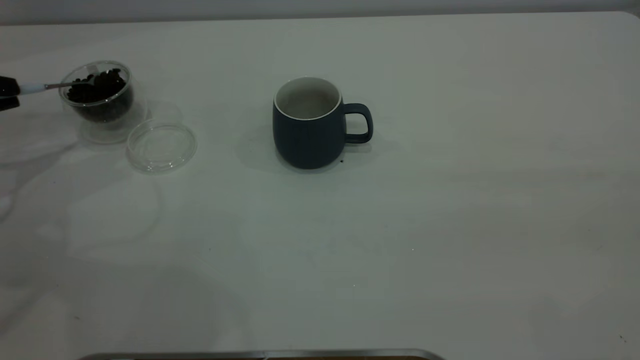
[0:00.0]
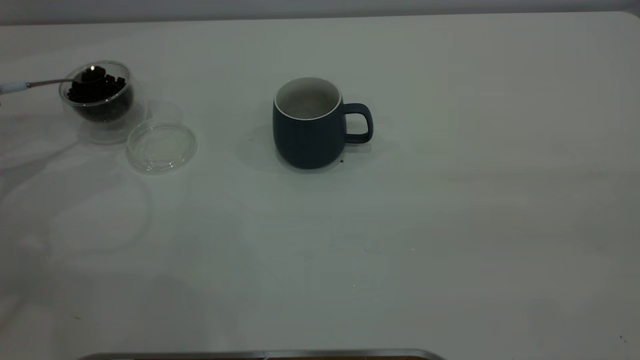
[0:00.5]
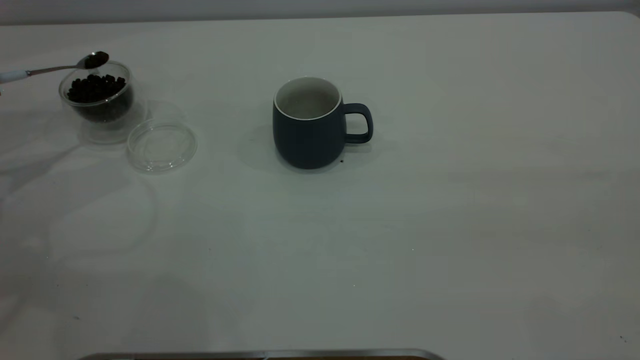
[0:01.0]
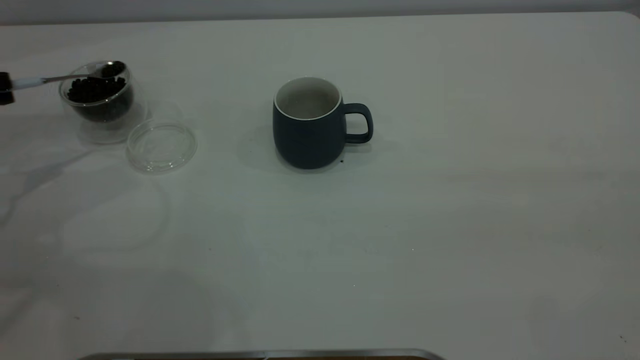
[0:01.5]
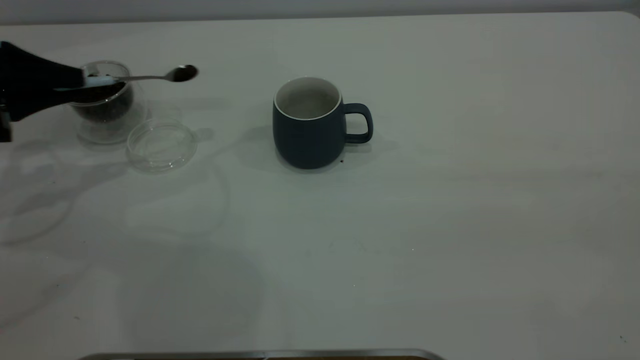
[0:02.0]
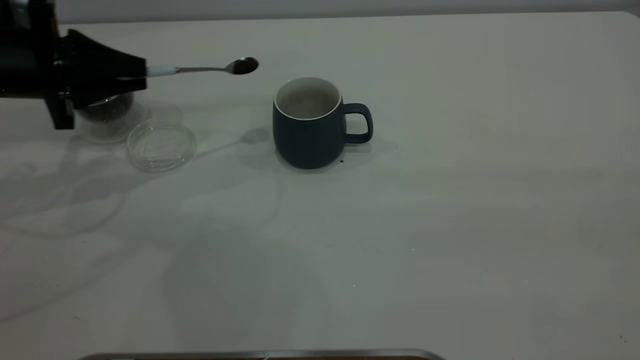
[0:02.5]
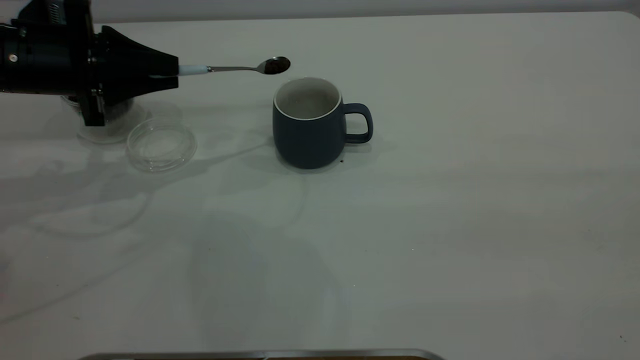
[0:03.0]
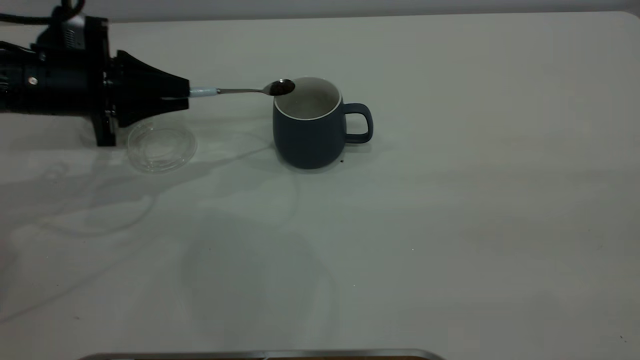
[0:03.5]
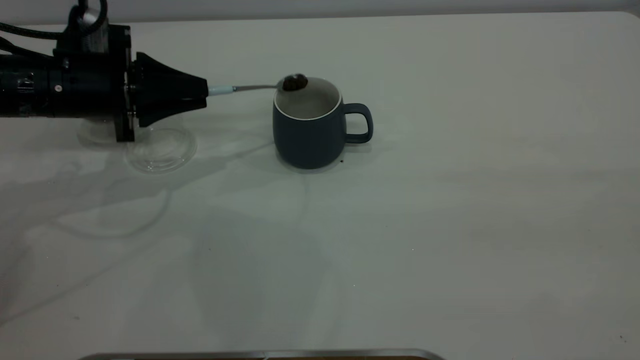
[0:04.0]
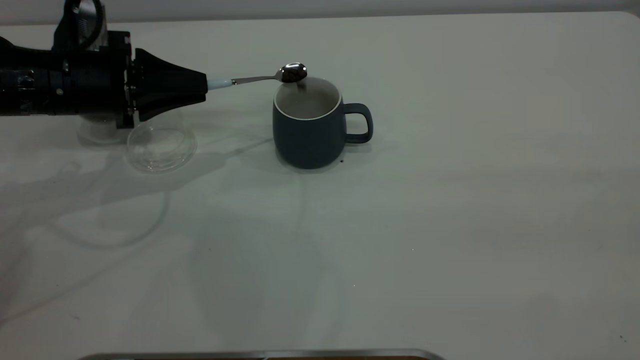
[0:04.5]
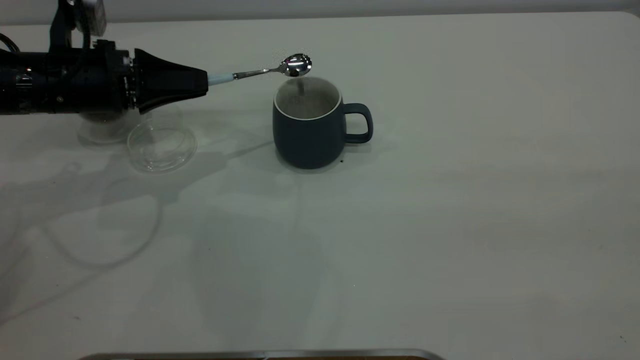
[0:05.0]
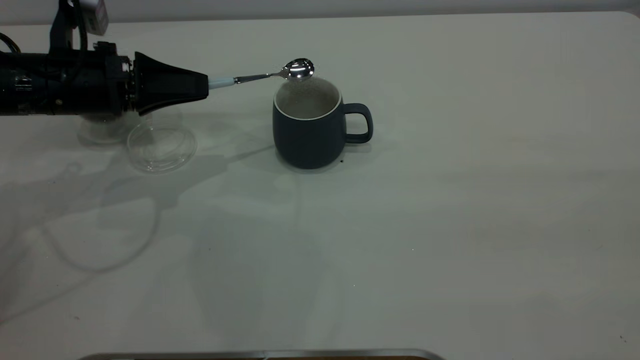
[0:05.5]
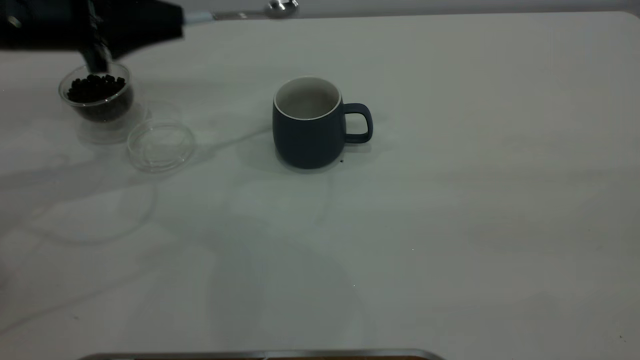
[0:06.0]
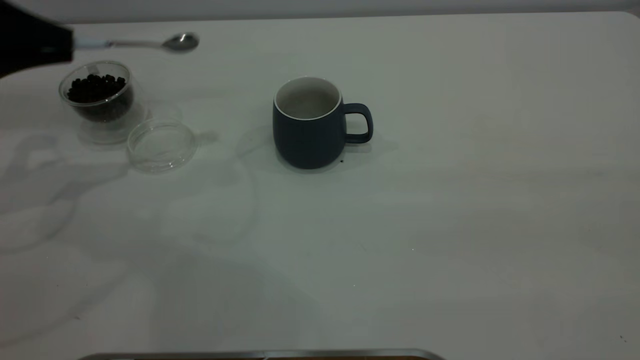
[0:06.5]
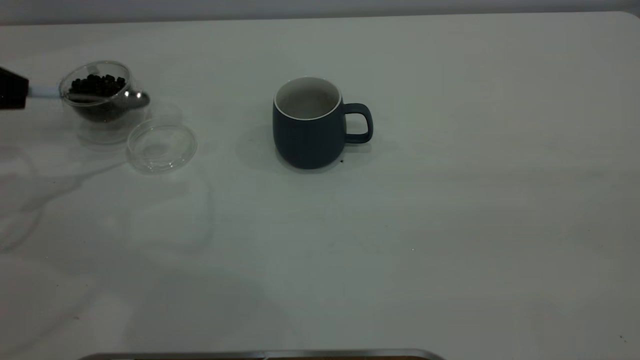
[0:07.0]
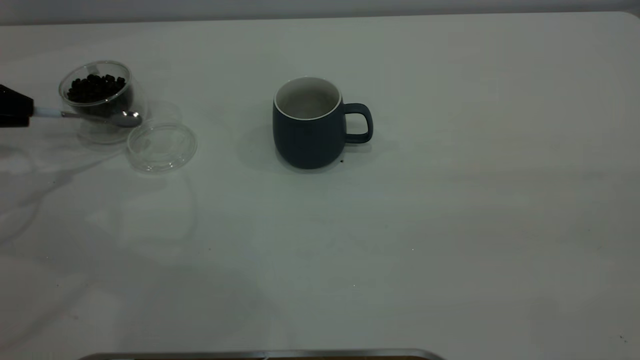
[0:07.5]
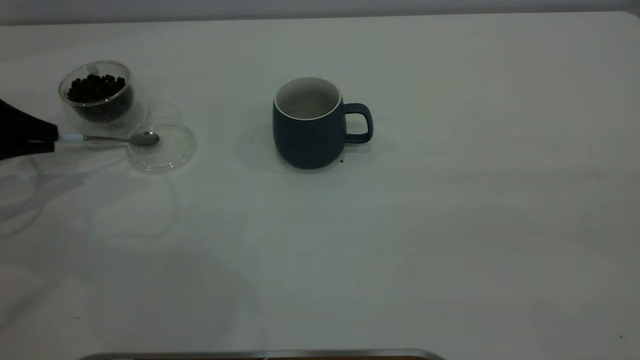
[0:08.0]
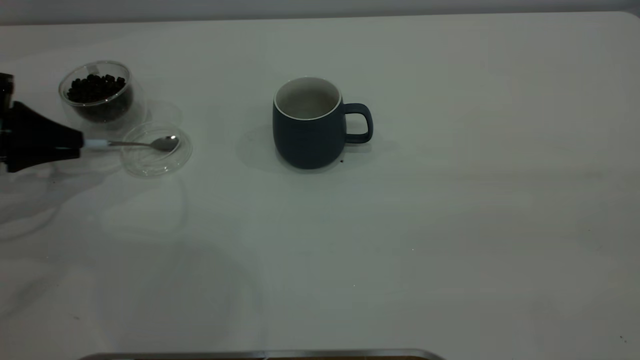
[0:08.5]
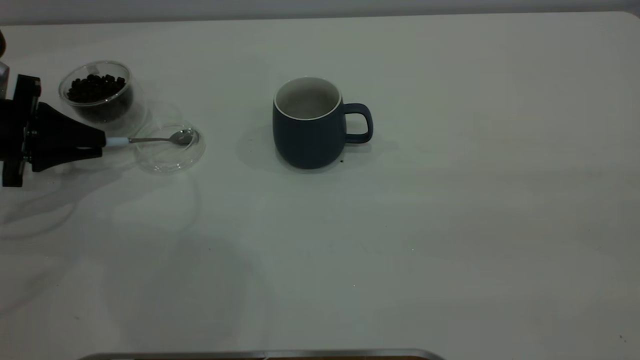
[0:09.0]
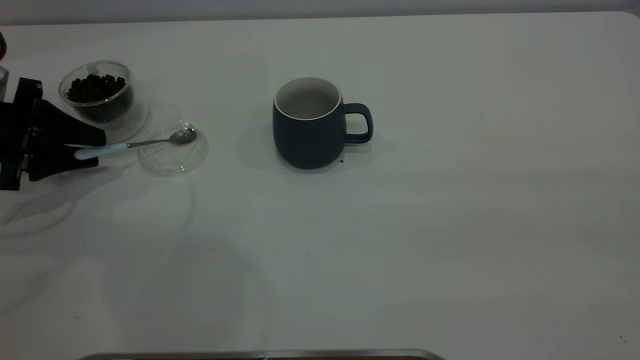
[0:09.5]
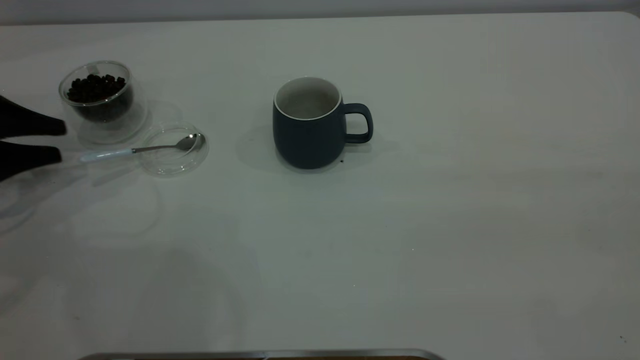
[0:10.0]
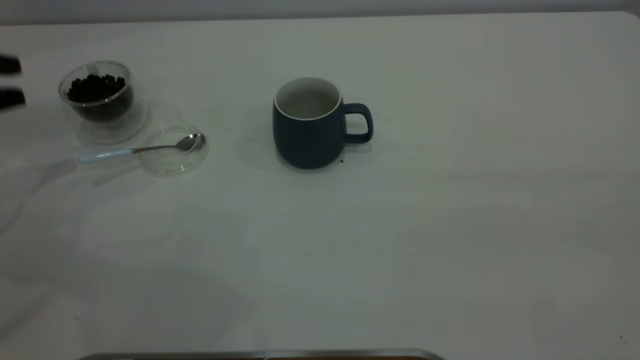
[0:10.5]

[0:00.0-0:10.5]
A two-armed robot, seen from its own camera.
Task of the whole recording: the right gripper place the grey cup in the center of the table, the left gripper take the blue spoon from the cup lid and scoop out the coffee beans from the coffee cup and put them into the grey cup, the left gripper put the spoon back into the cup lid.
Step, 0:00.0 to 0:05.5: Scoop a spoonful of beans into the cup.
Step, 0:06.0 to 0:10.5: Place the spoon back in its original place.
0:00.0 to 0:02.0: The left gripper moves to the right, some 10 cm.
0:02.0 to 0:04.0: The left gripper shifts approximately 10 cm to the right.
0:04.0 to 0:06.5: The left gripper travels to the left and upward by some 15 cm.
0:06.5 to 0:08.5: The left gripper heads downward, covering roughly 10 cm.
0:08.5 to 0:10.5: The left gripper goes some 5 cm upward, and opens its fingers.
